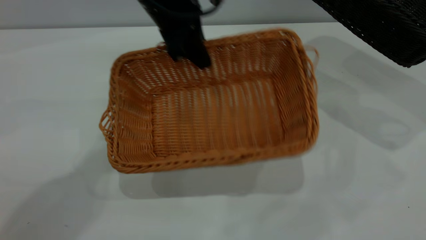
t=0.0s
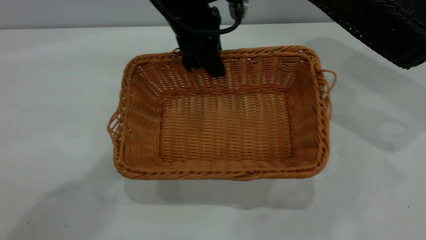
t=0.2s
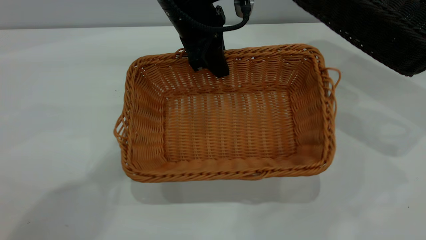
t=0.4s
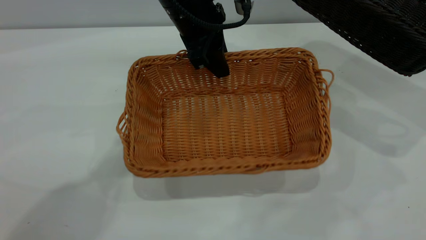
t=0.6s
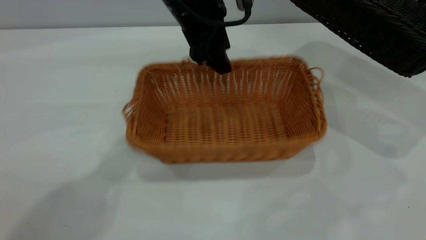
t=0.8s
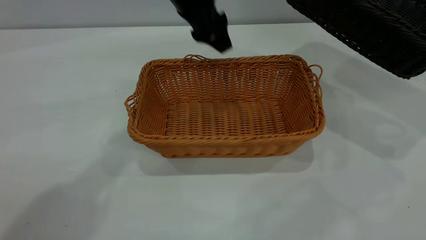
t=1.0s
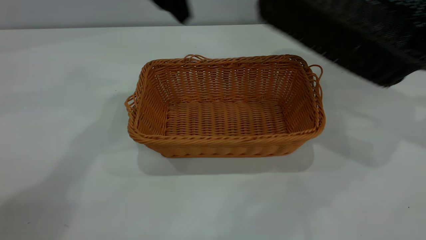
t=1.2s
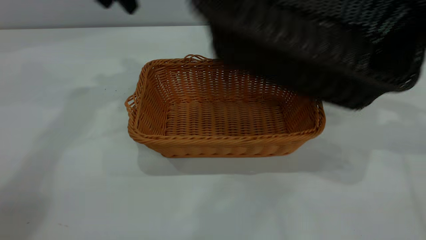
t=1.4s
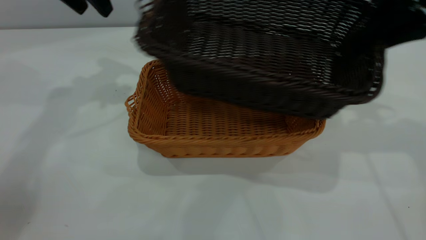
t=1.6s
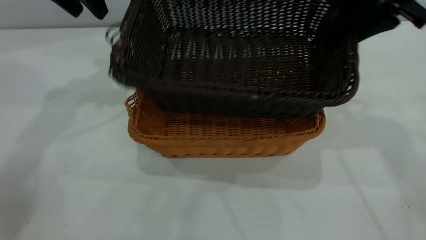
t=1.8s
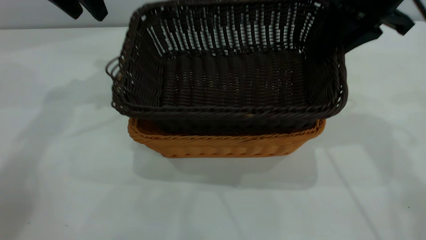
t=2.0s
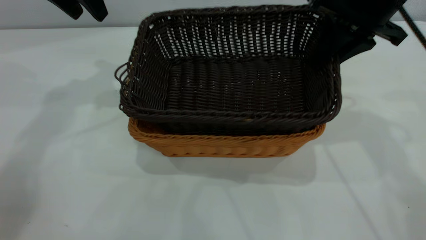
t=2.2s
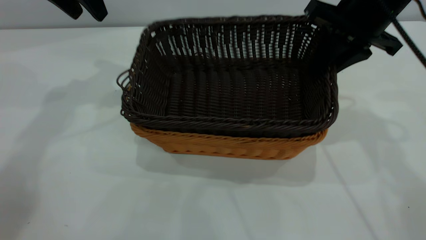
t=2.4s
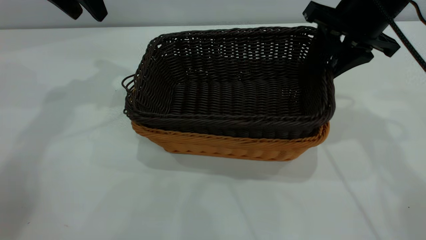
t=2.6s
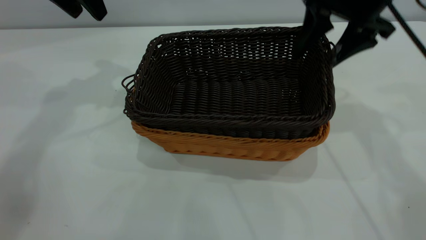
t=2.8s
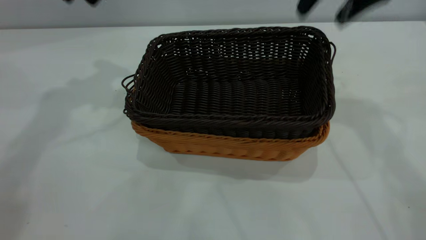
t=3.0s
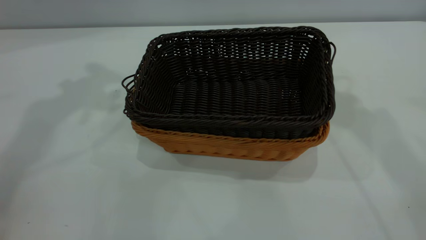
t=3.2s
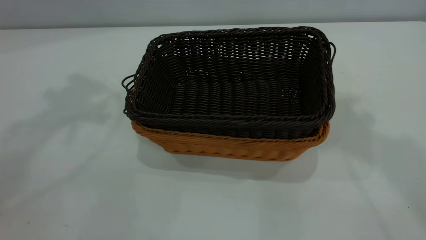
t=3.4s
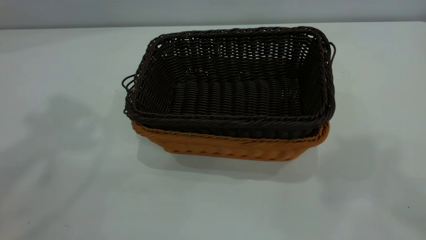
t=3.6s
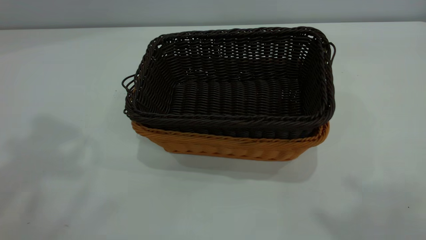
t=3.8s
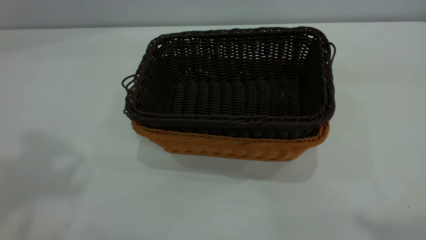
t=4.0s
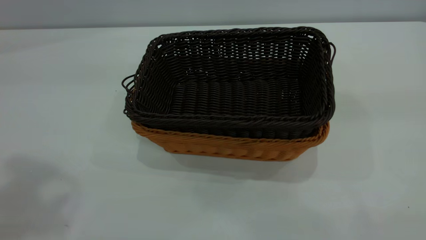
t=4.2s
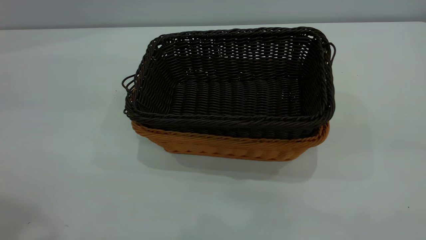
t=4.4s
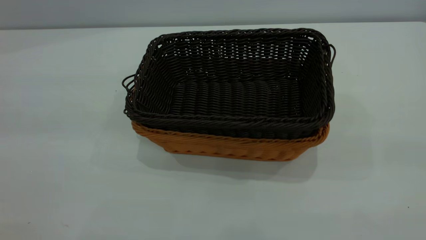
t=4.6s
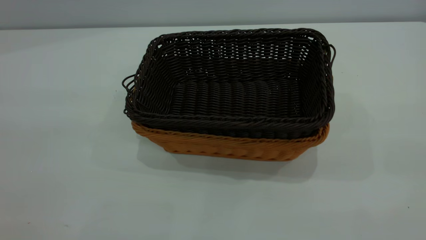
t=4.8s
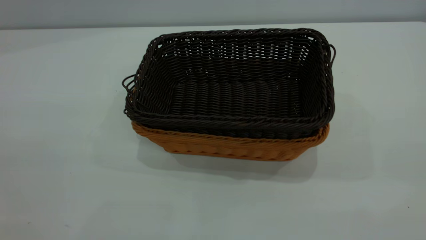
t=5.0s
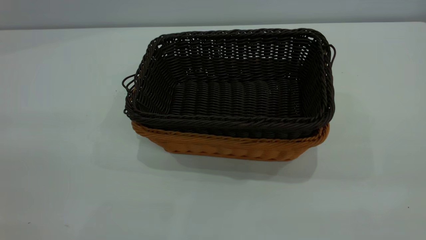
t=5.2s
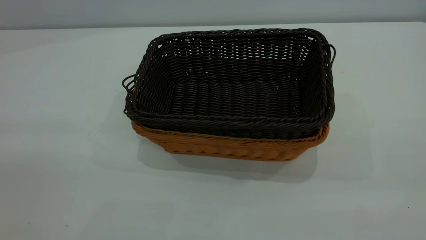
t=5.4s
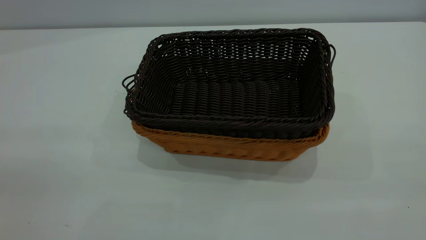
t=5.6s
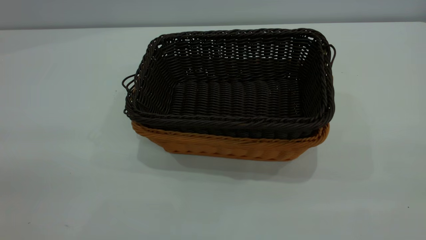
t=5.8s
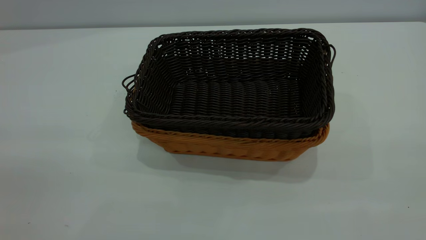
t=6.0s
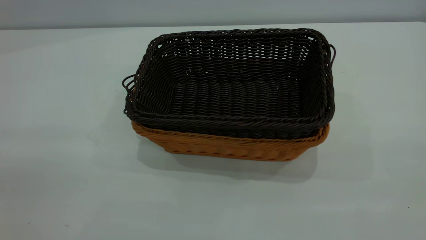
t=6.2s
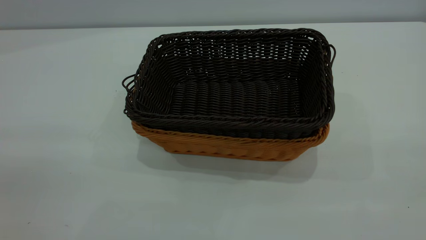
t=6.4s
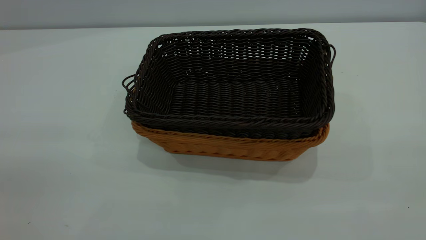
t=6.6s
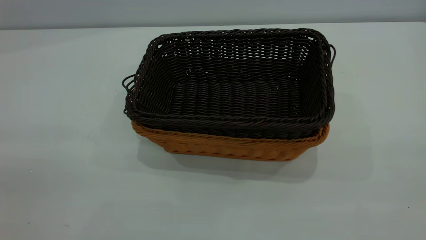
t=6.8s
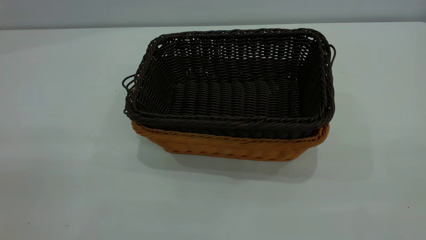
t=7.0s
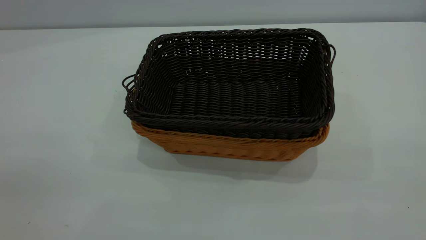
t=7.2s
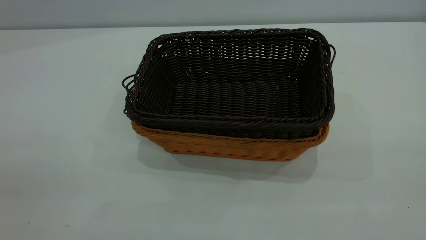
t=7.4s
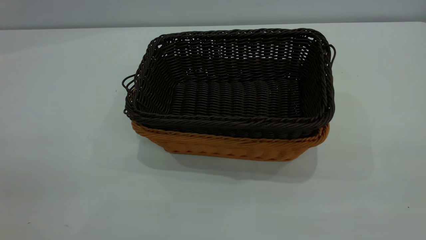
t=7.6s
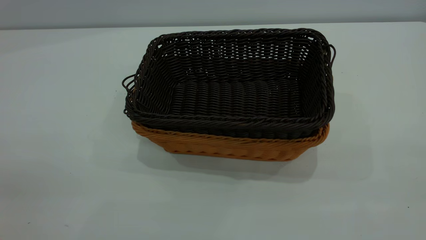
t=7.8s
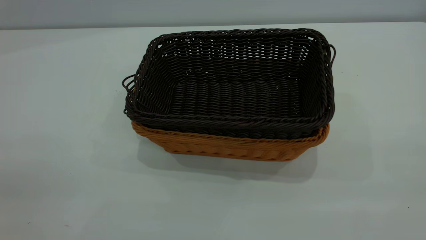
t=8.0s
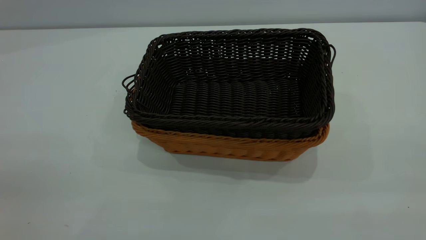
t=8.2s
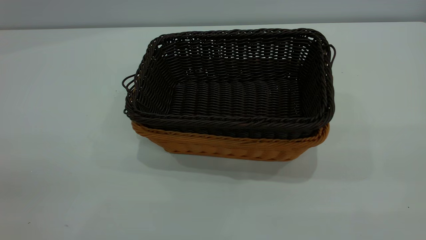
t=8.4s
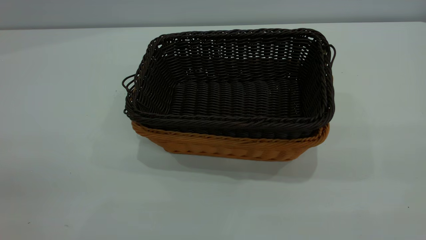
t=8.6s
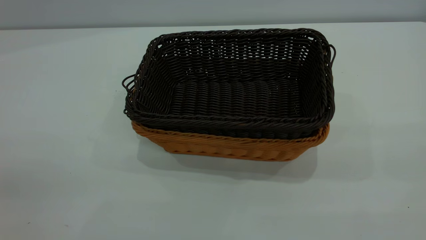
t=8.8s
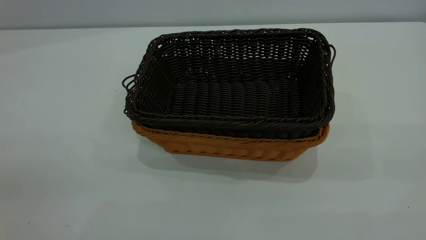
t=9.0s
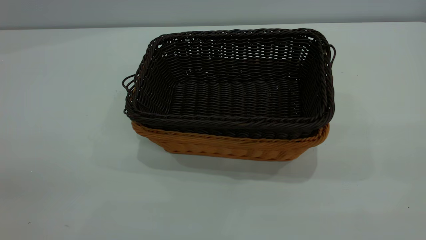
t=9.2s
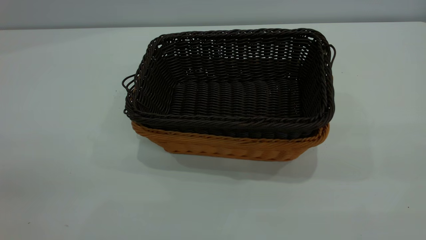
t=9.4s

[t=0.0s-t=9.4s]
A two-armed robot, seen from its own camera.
Task of the whole recording: the left gripper grasp the brown basket and place it in the center of the table, the right gripper grasp the black basket and place it inside the brown one.
Step, t=1.2s to t=2.8s: Place the dark basket on top of the light basket.
t=0.0s to t=1.6s: The left gripper moves to the left and upward, approximately 20 cm, and opens up, while the right gripper travels to the left by about 15 cm.
t=1.6s to t=3.2s: Both grippers move upward, about 15 cm. The right gripper opens.
t=3.2s to t=4.8s: The right gripper is displaced backward by about 35 cm.

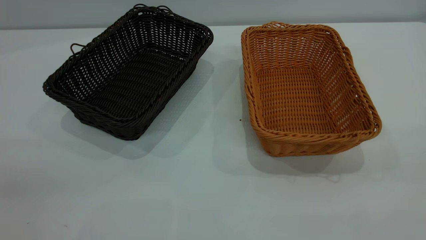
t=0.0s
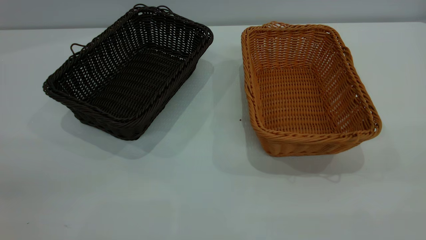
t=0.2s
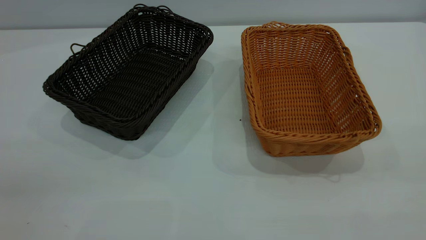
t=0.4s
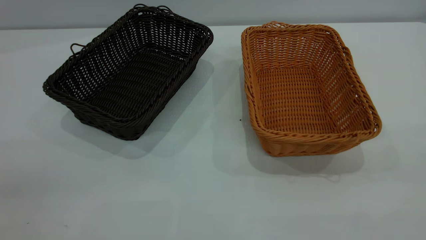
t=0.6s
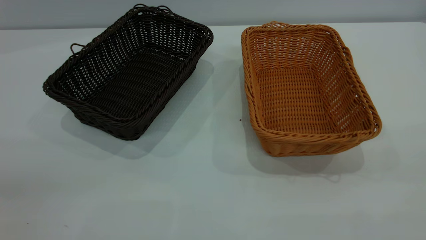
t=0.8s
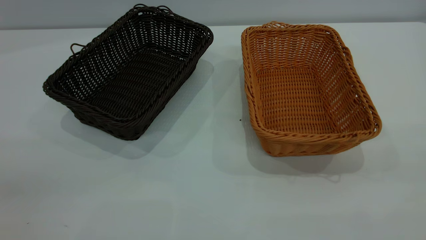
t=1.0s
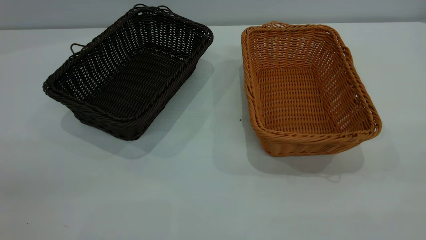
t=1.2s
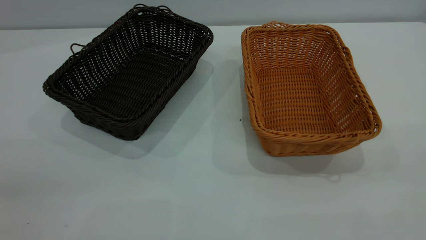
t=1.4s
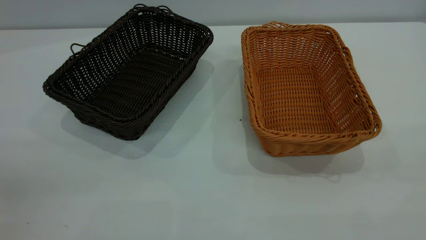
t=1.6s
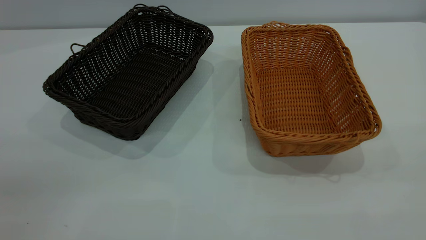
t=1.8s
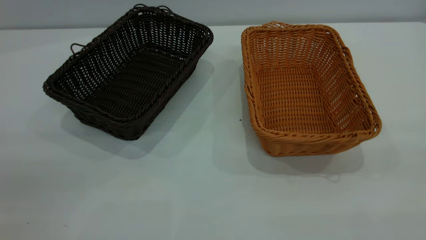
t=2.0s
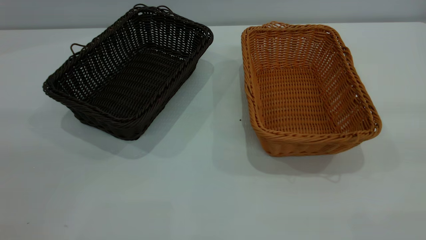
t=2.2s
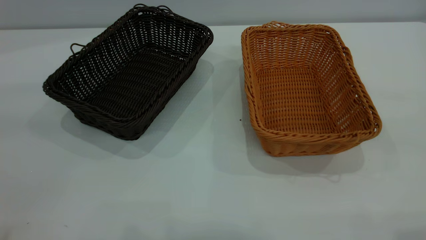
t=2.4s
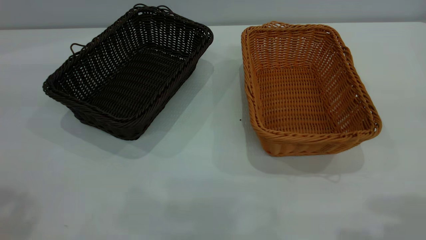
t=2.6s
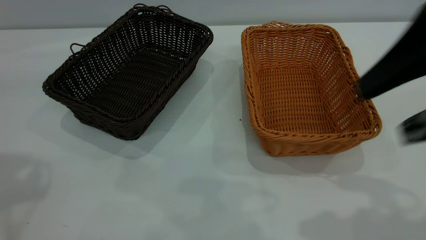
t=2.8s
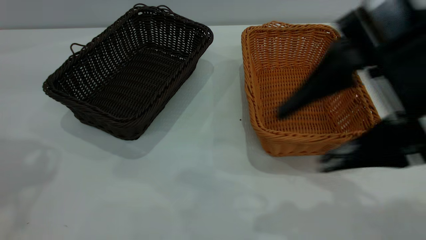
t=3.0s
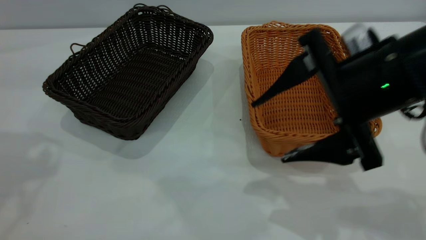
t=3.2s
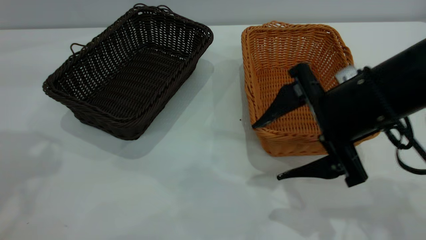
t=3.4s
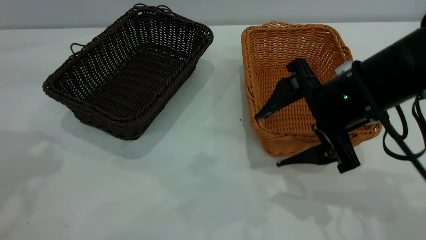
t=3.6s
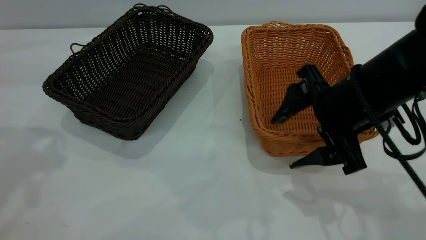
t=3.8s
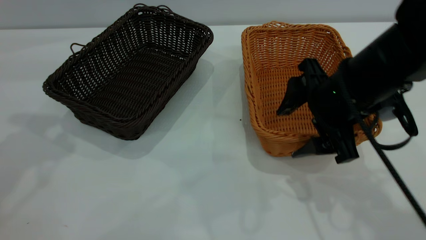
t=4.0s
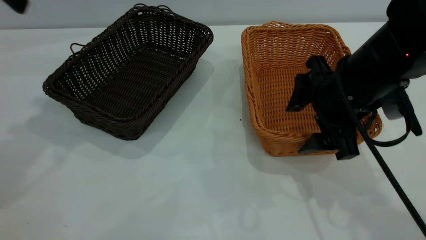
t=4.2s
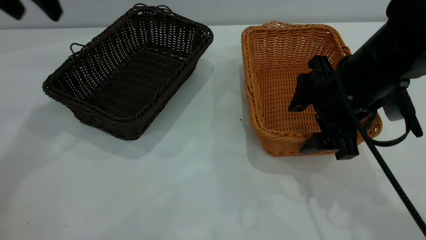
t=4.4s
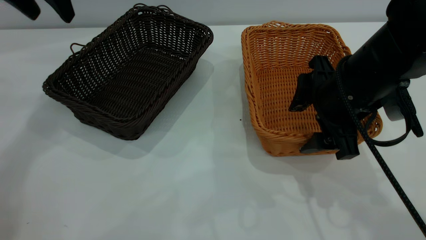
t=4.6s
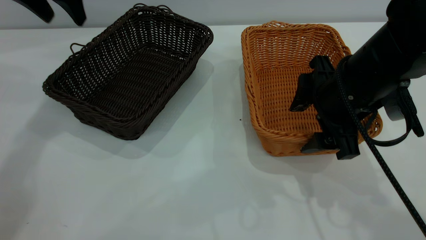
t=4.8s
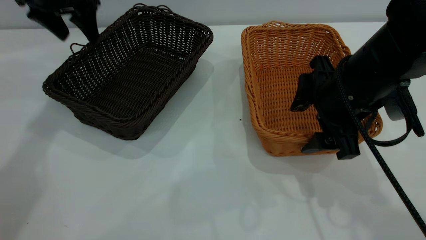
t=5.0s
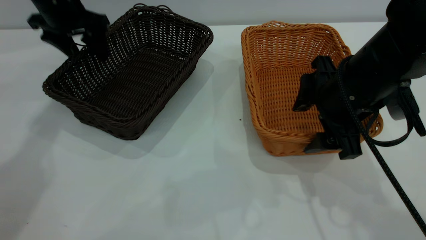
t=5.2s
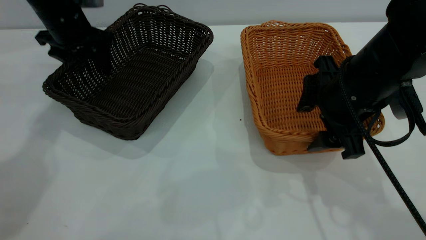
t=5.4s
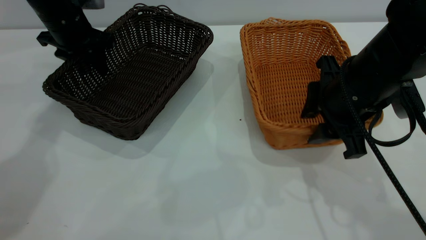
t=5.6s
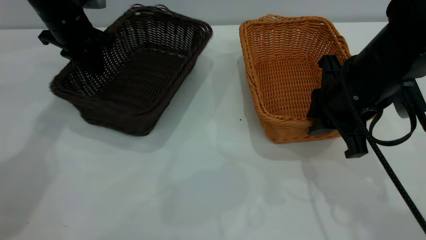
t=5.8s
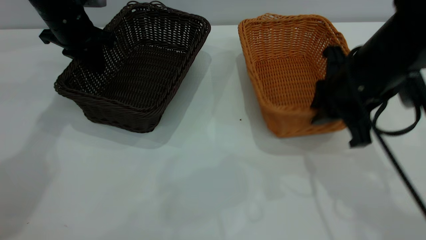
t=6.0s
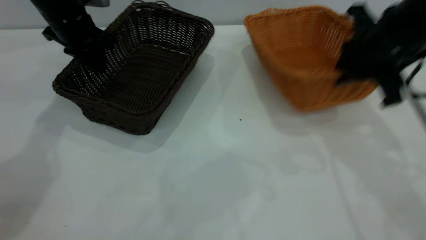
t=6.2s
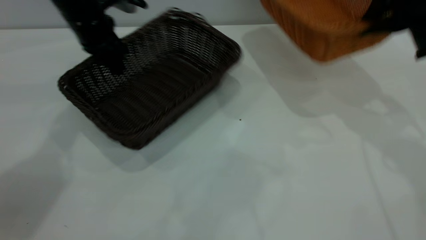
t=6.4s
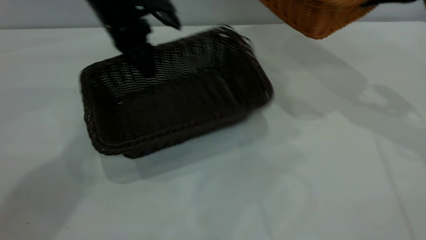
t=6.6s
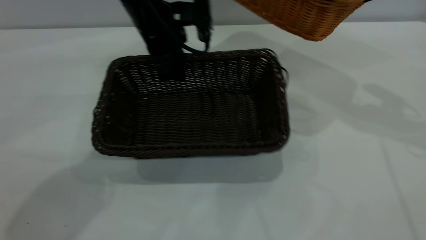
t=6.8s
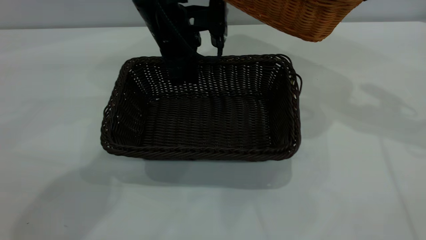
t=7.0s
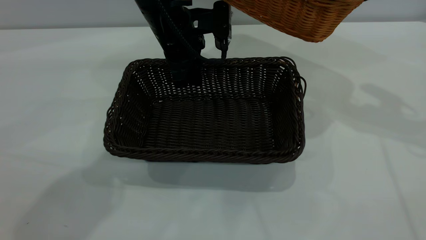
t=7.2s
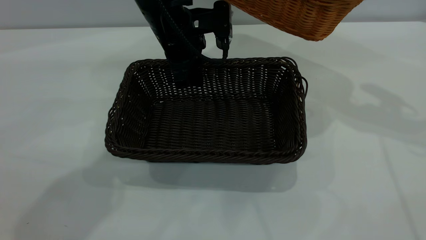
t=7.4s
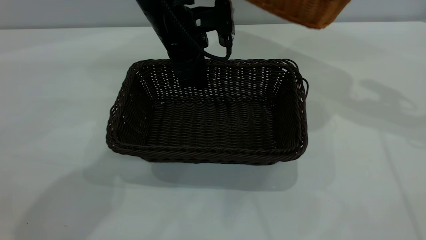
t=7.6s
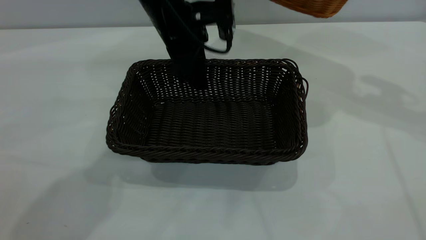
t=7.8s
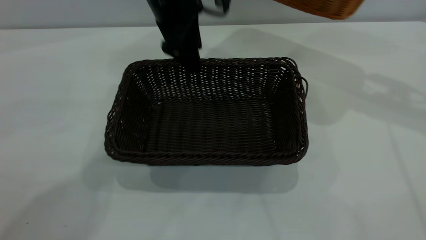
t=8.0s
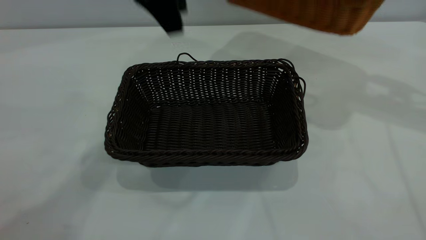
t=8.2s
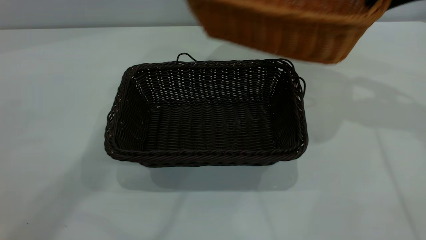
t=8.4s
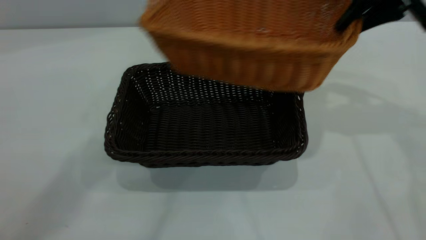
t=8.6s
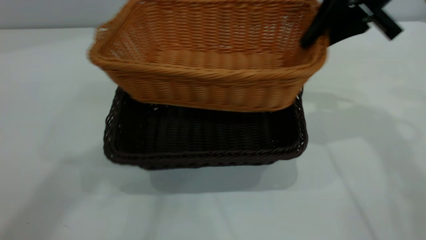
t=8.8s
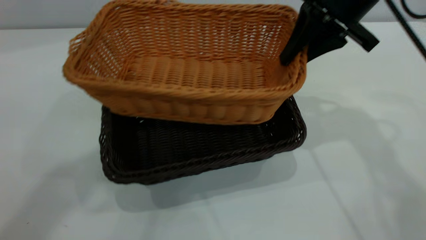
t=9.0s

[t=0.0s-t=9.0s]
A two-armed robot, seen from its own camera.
Task of the whole recording: the left gripper grasp the black basket and place it in the center of the table, the right gripper grasp the brown basket and place it inside the black one.
Step, t=0.0s to t=6.2s: Pick up the light basket with the right gripper.
Step, t=6.4s to t=8.0s: Move the dark basket to the center of view.
t=0.0s to t=1.6s: Both grippers stay put.
t=1.6s to t=3.0s: The right gripper shifts roughly 25 cm forward, downward and to the left.
t=3.0s to t=4.4s: The right gripper is displaced downward and forward by roughly 10 cm. The left gripper goes approximately 15 cm forward and downward.
t=4.4s to t=6.0s: The left gripper travels downward and forward by some 15 cm, and closes its fingers. The right gripper closes.
t=6.0s to t=7.6s: The left gripper travels to the right by approximately 20 cm, and opens its fingers. The right gripper shifts some 20 cm upward, to the right and forward.
t=7.6s to t=9.0s: The right gripper moves to the left and downward, approximately 15 cm. The left gripper goes some 40 cm upward and backward.
